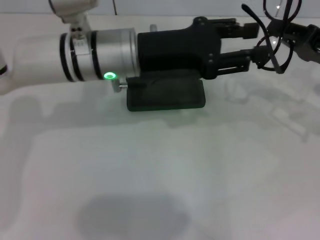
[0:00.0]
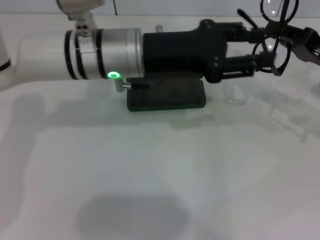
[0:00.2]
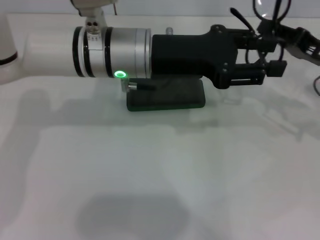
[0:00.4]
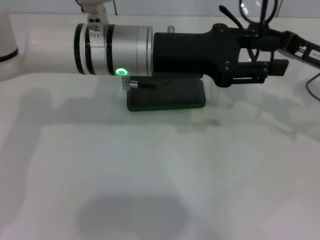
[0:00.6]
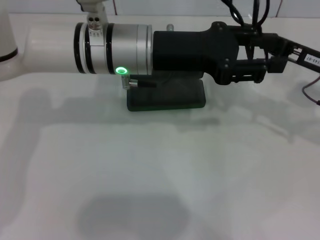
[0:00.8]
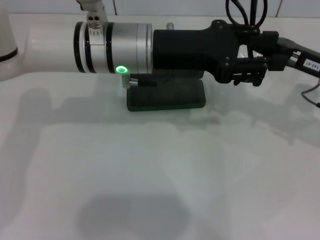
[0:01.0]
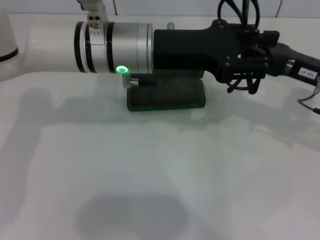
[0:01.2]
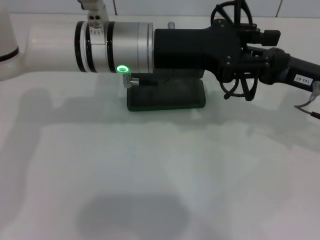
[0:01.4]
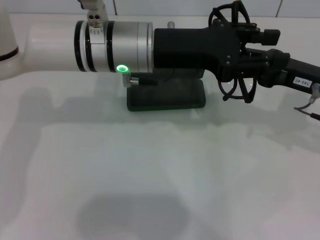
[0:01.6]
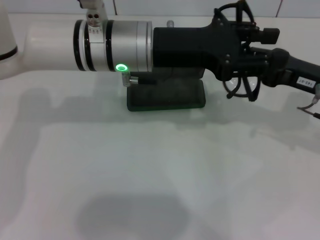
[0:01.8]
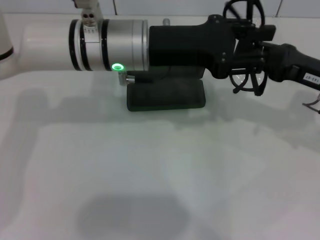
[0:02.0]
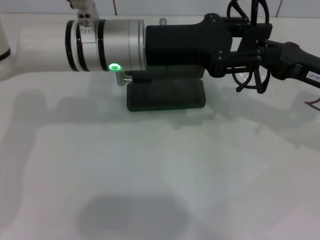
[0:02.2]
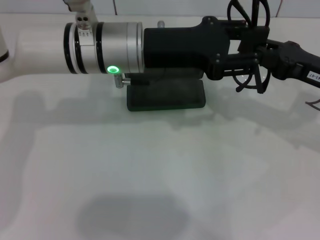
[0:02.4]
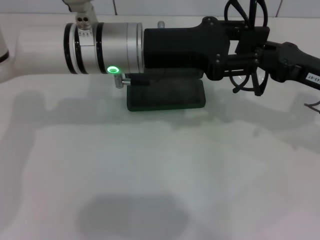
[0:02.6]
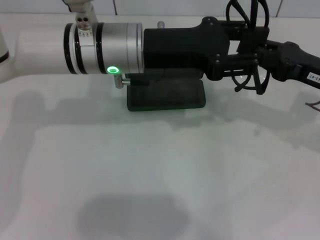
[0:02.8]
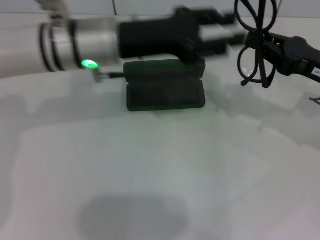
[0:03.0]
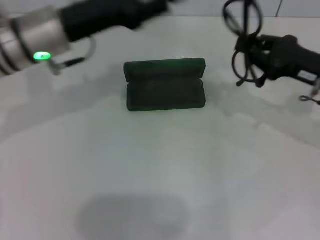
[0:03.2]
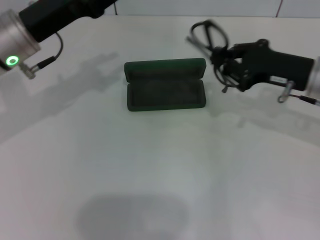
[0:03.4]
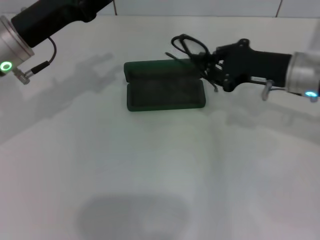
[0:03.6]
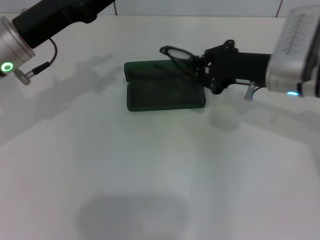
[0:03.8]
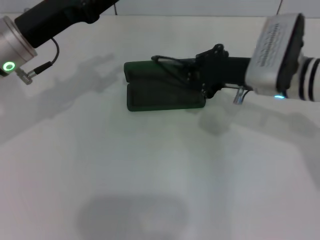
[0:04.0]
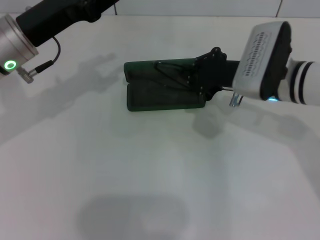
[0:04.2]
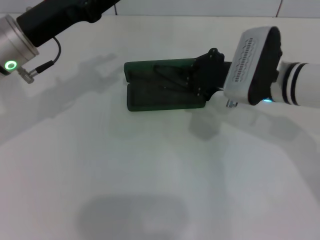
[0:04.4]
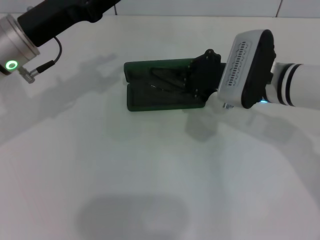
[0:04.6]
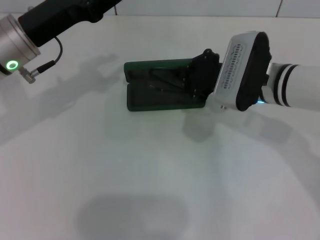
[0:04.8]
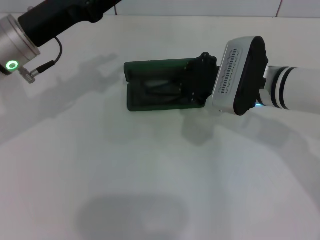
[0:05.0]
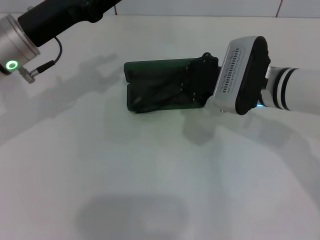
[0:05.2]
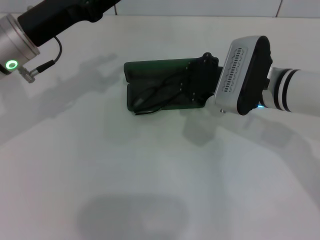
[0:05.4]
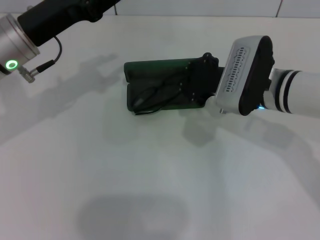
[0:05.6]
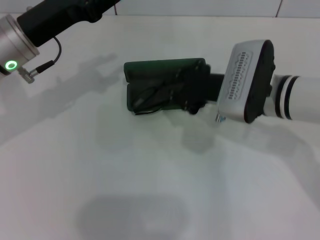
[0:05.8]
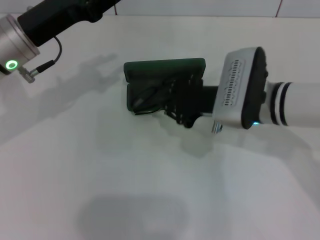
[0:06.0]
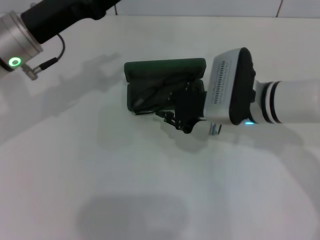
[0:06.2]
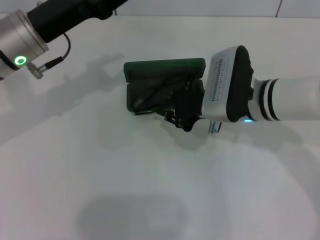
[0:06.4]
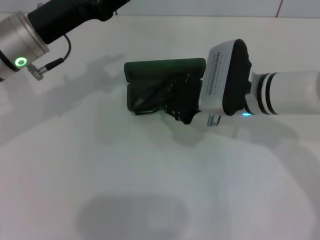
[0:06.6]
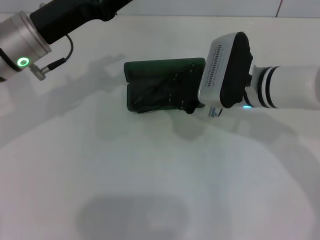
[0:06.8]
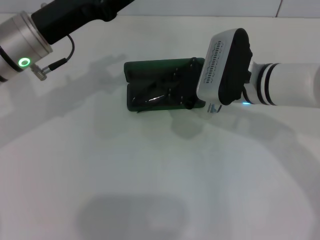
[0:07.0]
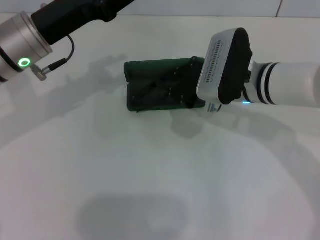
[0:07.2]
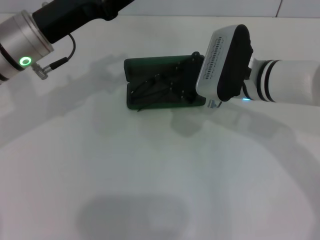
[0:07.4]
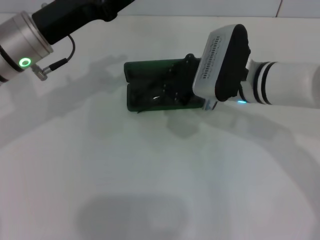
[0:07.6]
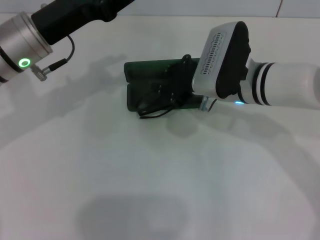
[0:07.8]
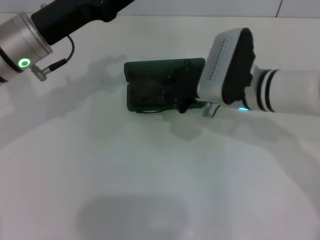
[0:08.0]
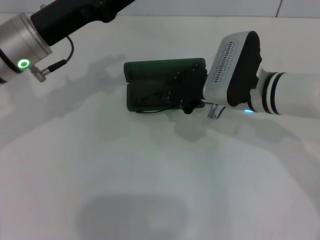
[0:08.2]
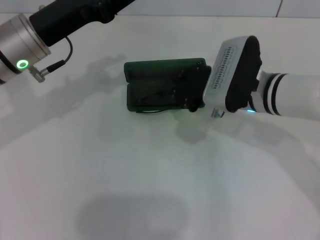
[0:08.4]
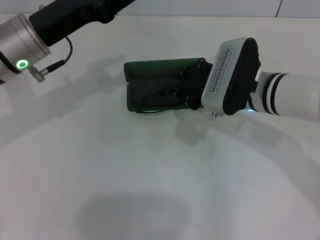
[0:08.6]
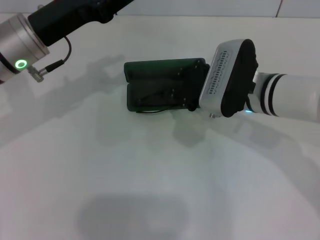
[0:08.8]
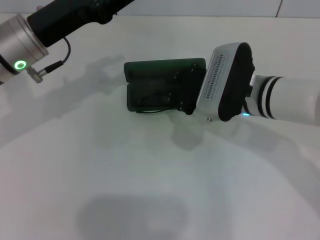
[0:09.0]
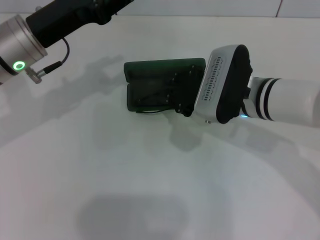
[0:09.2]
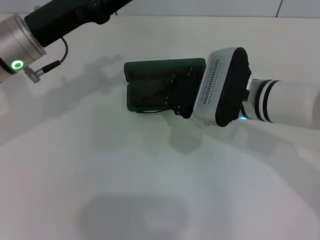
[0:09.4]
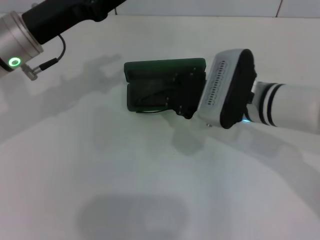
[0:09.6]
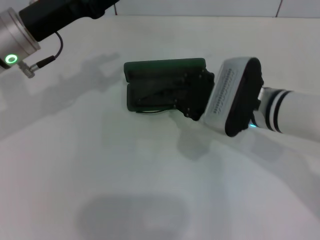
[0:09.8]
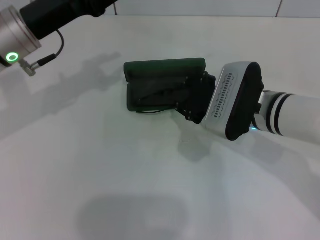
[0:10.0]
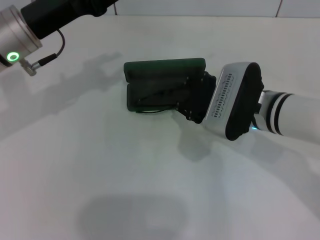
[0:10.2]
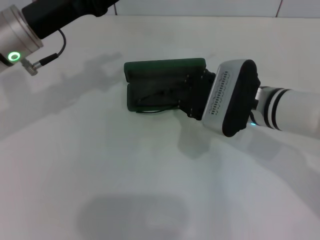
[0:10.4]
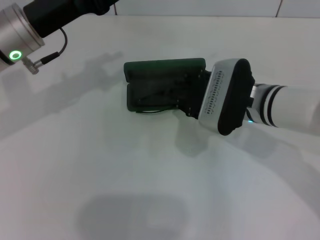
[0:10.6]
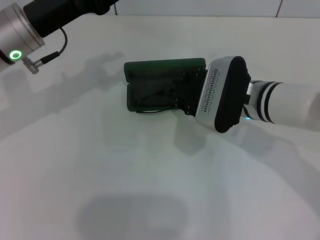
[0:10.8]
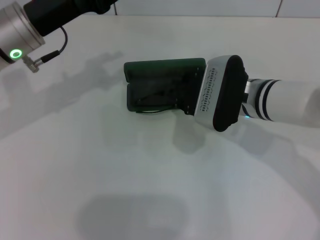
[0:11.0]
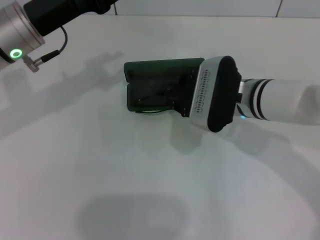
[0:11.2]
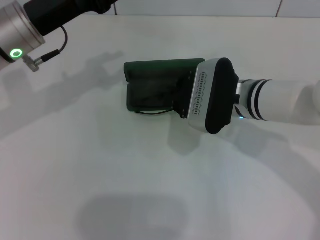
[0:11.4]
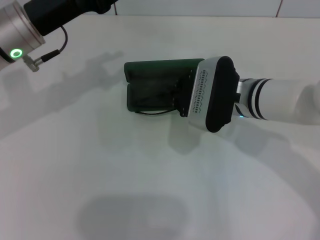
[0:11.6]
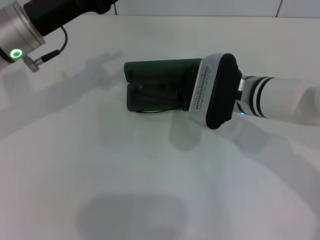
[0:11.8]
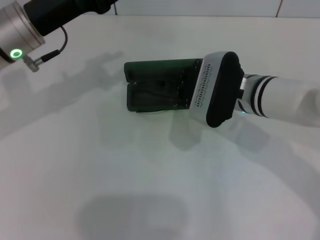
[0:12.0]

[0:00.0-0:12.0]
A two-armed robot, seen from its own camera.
0:01.6 to 0:03.0: The grippers stay close to where they were, moving slightly.
0:03.0 to 0:04.4: Both grippers move to the left, roughly 10 cm.
0:04.4 to 0:12.0: There are only small adjustments of the grippers.

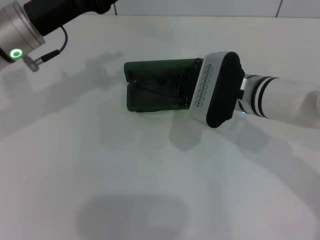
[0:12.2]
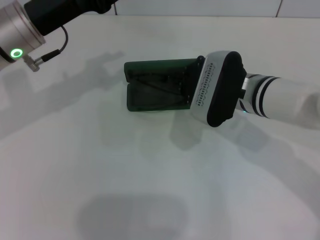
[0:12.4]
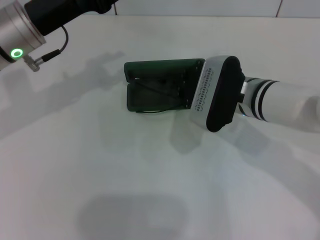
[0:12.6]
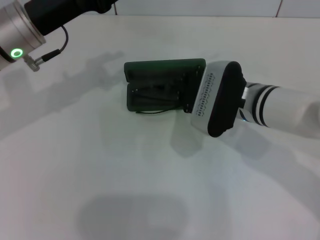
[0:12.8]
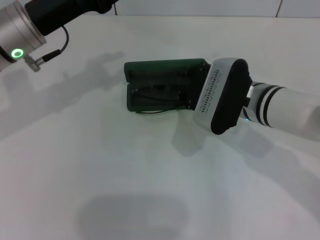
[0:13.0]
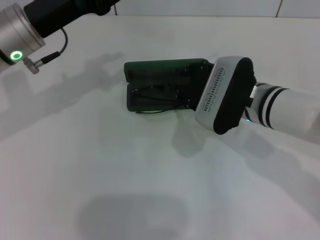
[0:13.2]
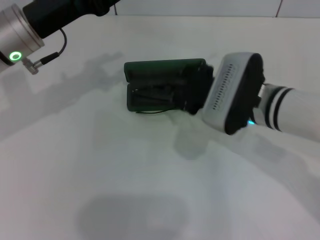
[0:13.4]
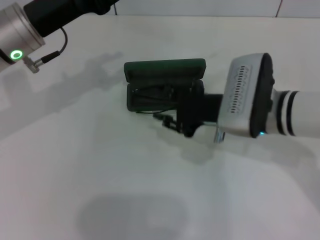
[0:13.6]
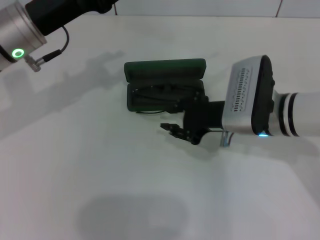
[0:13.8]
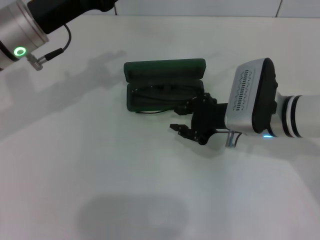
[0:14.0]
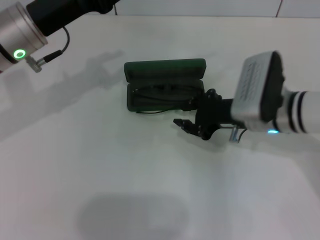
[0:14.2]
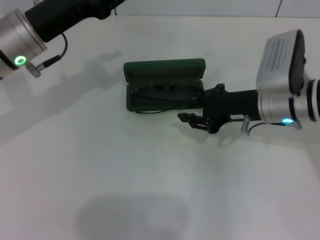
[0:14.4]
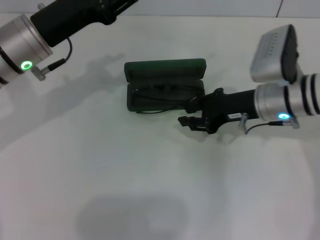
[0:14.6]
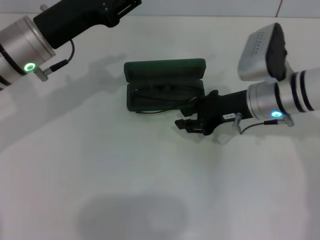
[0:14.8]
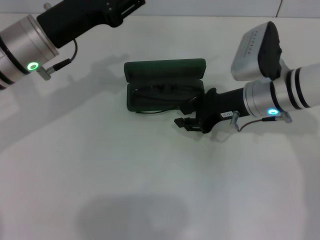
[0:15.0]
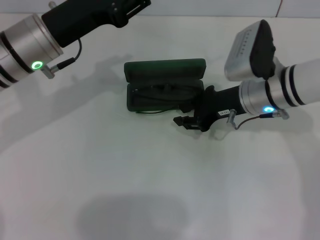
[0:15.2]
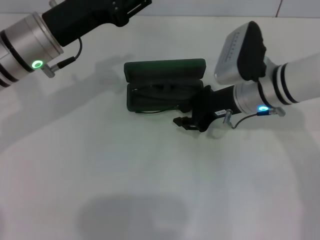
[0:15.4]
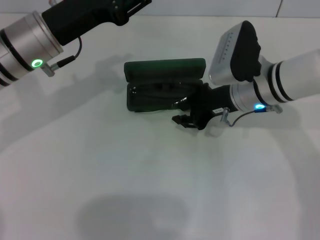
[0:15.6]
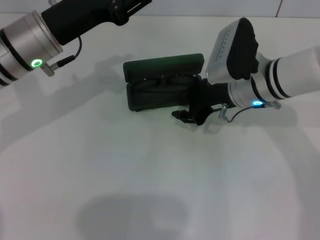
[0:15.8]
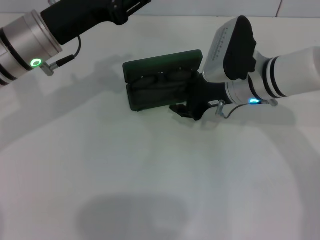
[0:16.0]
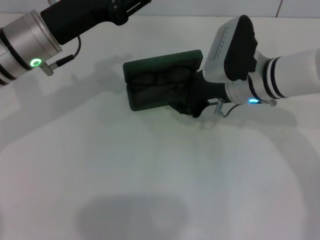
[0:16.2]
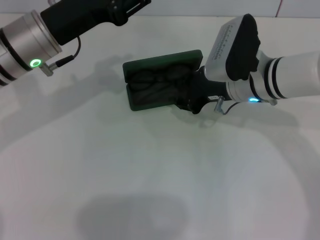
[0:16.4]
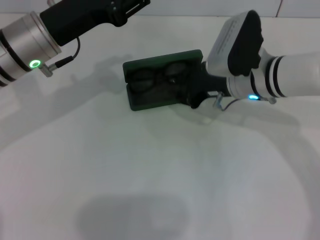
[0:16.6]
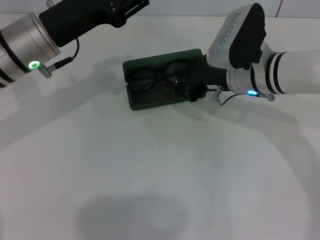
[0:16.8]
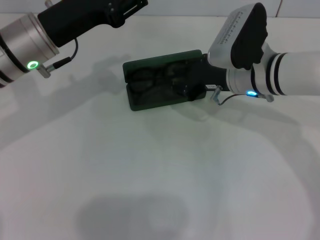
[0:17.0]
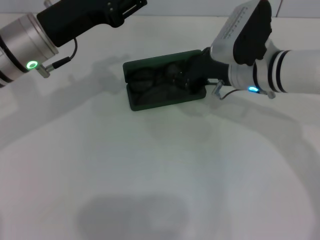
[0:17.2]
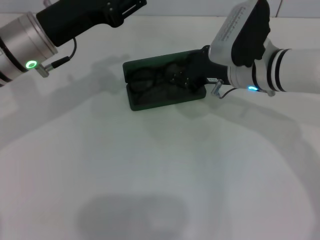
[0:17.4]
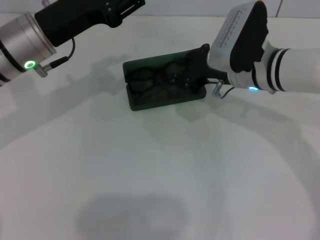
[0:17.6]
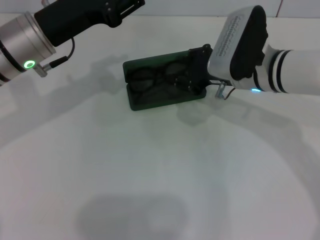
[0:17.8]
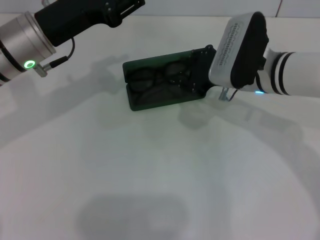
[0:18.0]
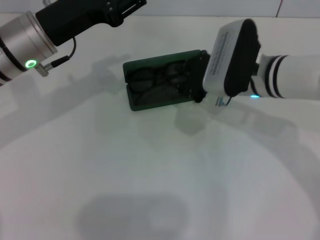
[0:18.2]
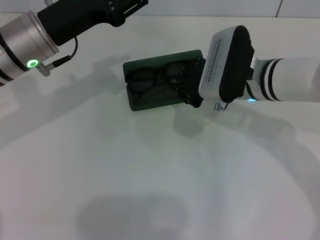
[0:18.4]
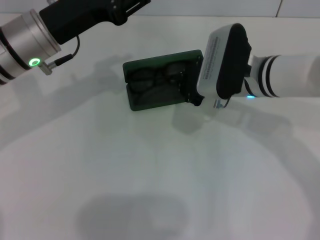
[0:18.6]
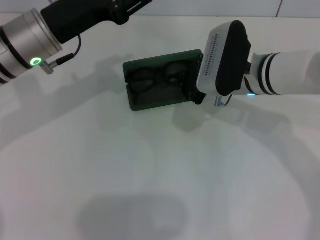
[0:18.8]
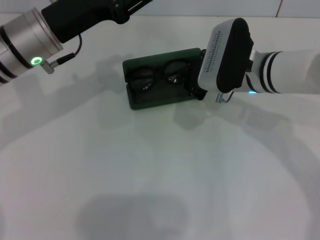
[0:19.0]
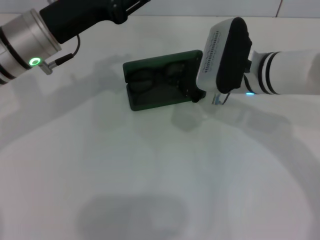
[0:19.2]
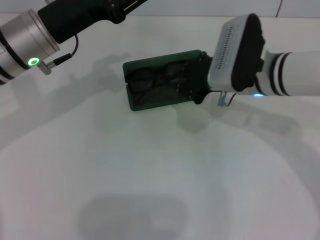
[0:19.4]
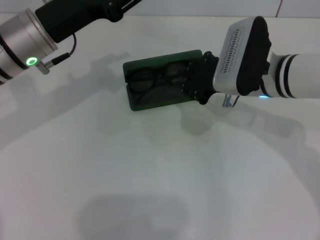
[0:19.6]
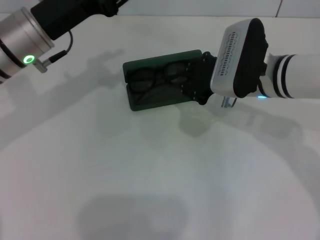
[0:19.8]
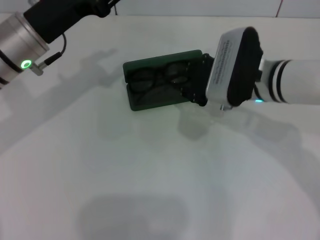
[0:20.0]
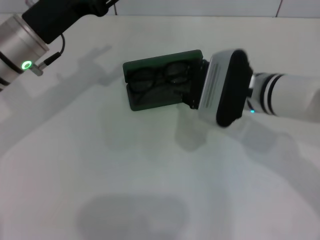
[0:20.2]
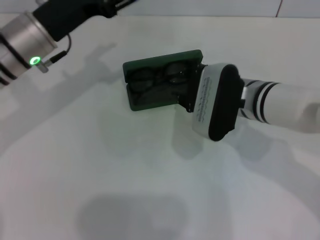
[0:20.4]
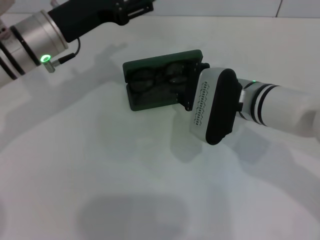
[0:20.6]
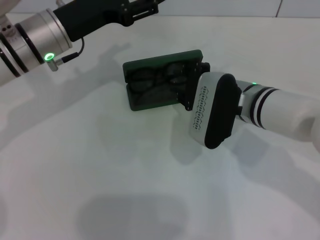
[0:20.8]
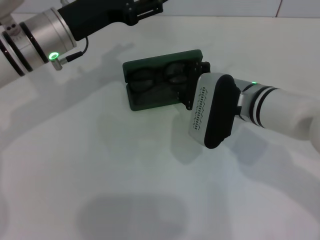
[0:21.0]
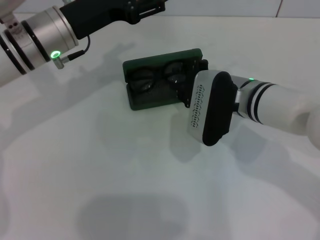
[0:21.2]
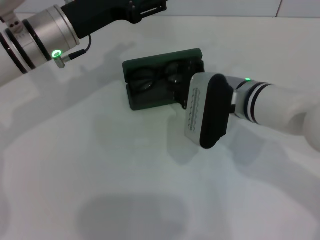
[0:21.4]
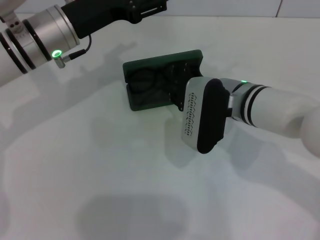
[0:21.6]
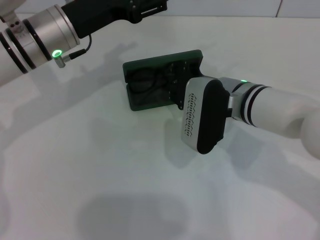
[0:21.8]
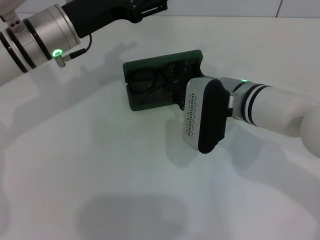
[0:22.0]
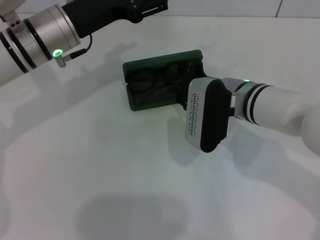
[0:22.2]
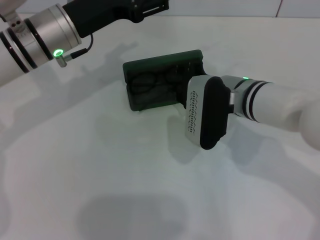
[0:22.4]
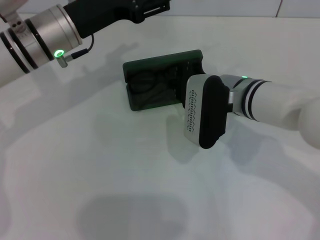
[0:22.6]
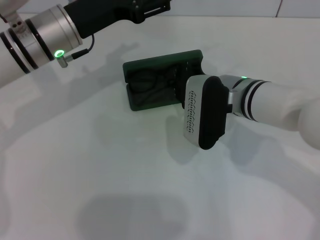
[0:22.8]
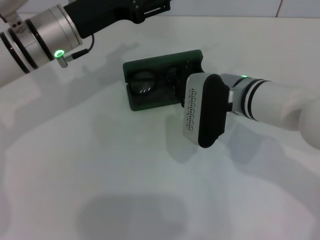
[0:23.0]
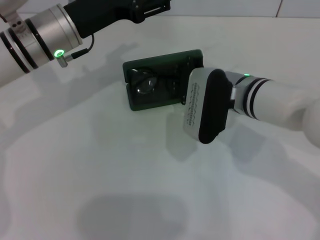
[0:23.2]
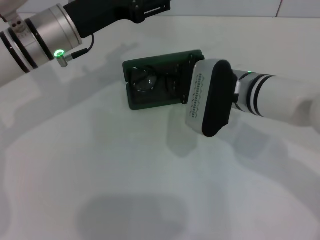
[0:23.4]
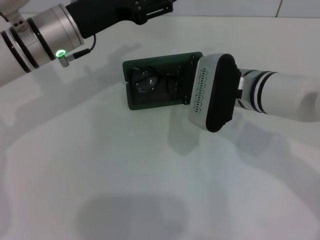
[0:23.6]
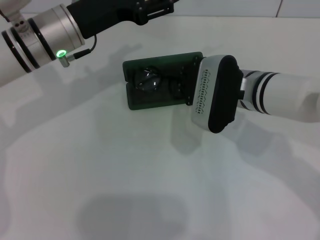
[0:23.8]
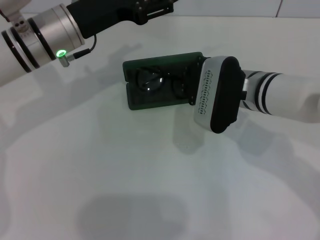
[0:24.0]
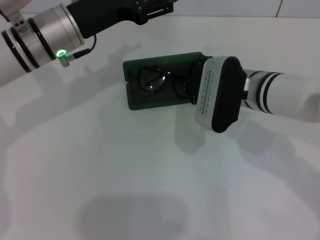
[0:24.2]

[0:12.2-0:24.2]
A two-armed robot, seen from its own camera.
Step, 0:12.2 to 0:16.6: Put the glasses into the case with your right hand.
0:12.2 to 0:13.8: The right gripper opens its fingers.
0:15.2 to 0:16.6: The grippers move only a little.
0:16.6 to 0:18.2: The grippers make only small movements.
0:18.2 to 0:19.8: The two grippers keep their place.
0:19.8 to 0:21.2: The left gripper opens up.
0:21.2 to 0:22.6: The grippers move only a little.
0:22.6 to 0:24.2: The right gripper closes.
